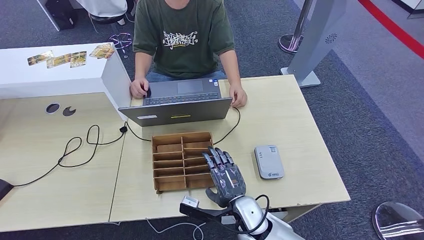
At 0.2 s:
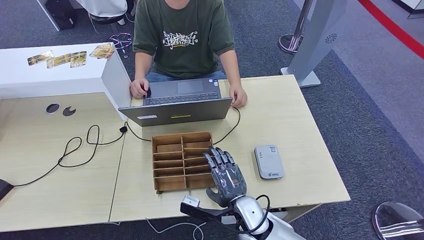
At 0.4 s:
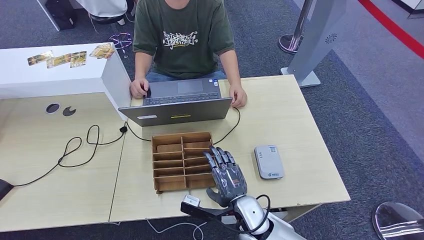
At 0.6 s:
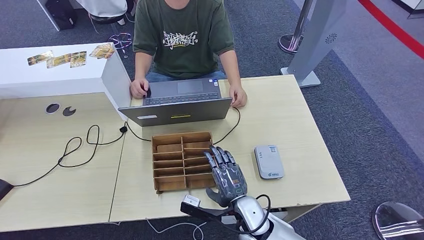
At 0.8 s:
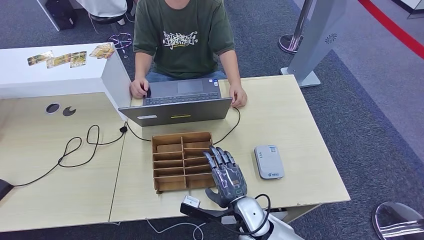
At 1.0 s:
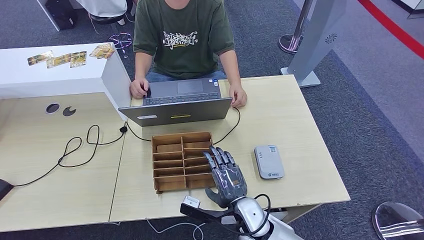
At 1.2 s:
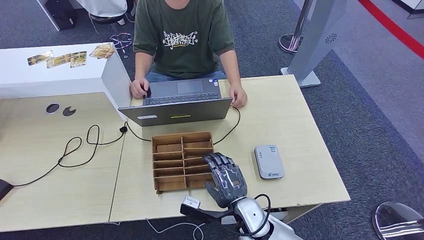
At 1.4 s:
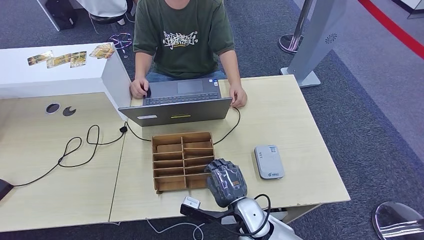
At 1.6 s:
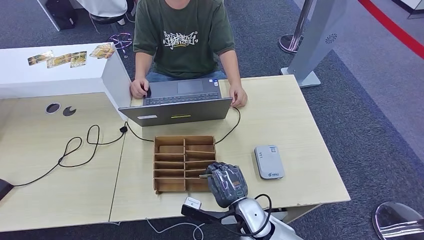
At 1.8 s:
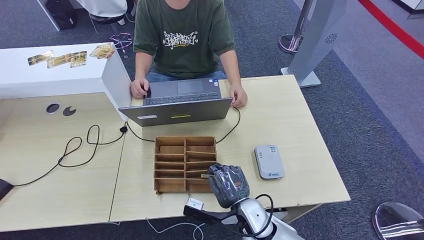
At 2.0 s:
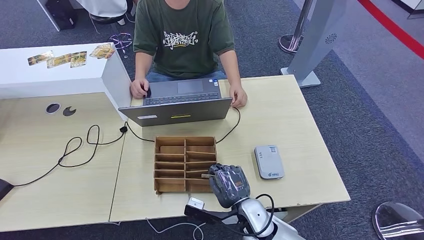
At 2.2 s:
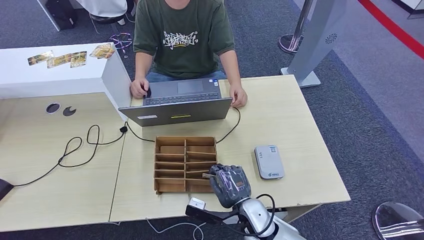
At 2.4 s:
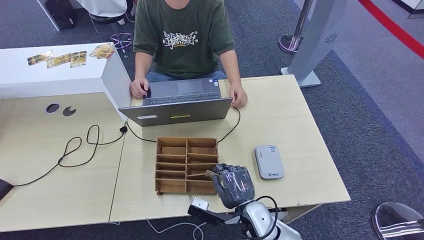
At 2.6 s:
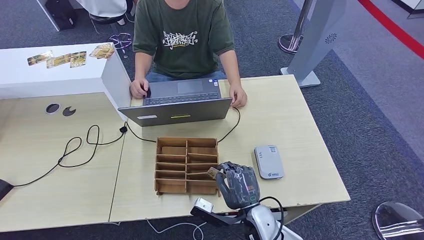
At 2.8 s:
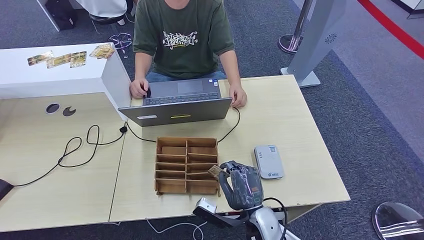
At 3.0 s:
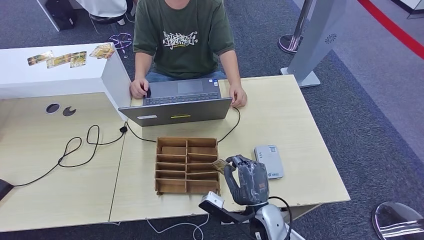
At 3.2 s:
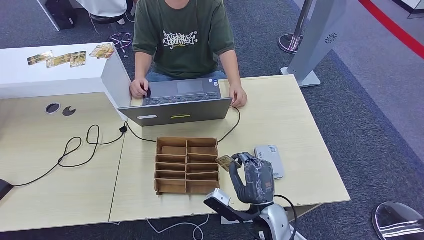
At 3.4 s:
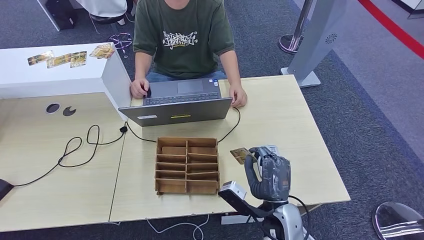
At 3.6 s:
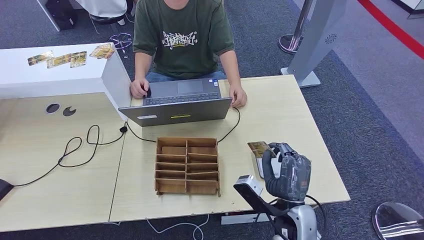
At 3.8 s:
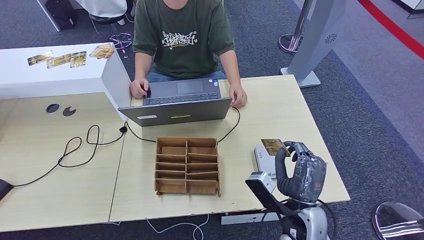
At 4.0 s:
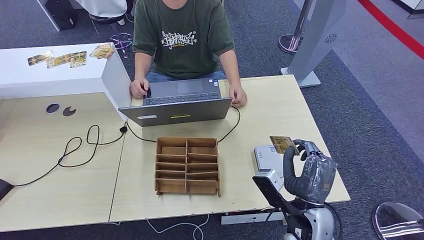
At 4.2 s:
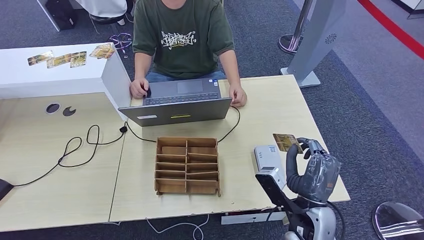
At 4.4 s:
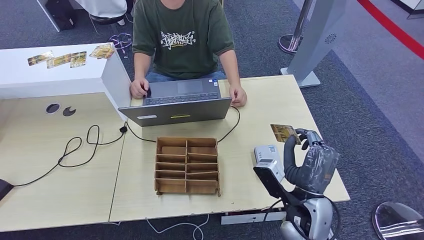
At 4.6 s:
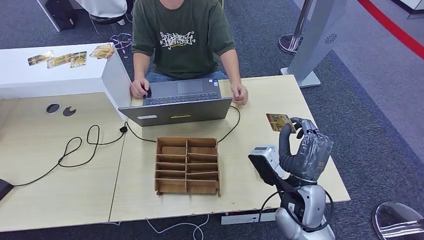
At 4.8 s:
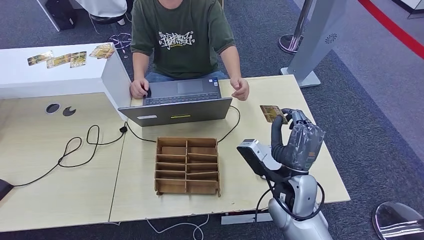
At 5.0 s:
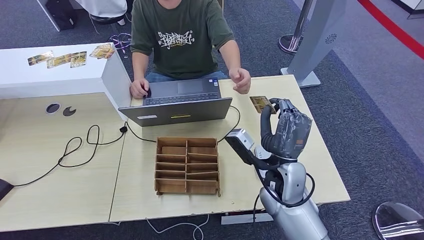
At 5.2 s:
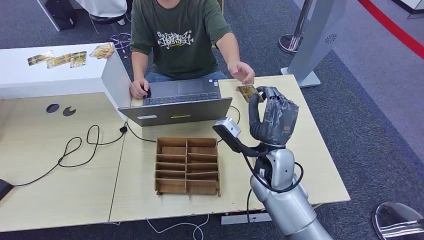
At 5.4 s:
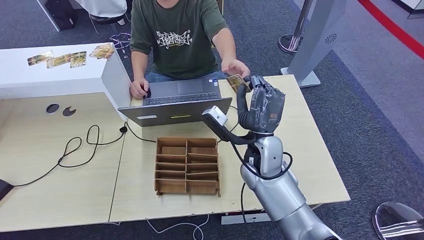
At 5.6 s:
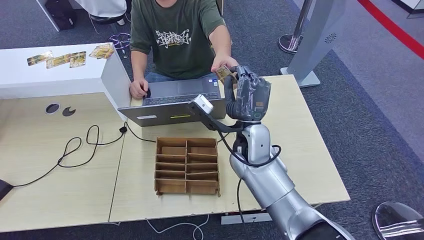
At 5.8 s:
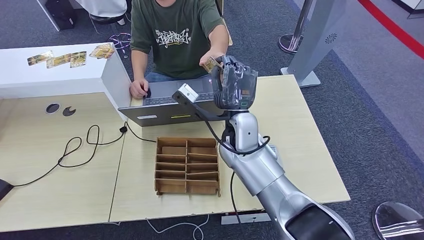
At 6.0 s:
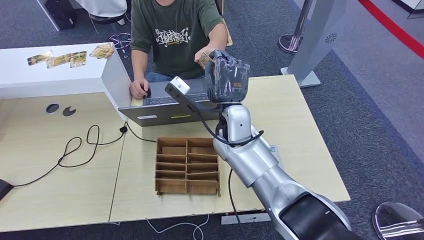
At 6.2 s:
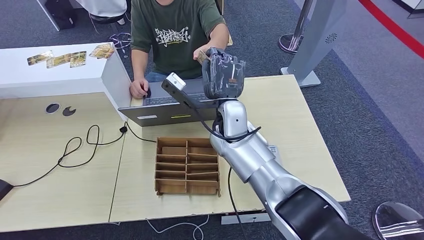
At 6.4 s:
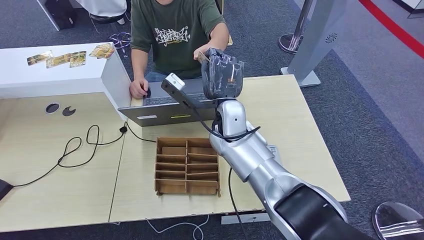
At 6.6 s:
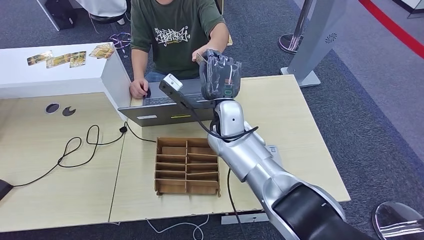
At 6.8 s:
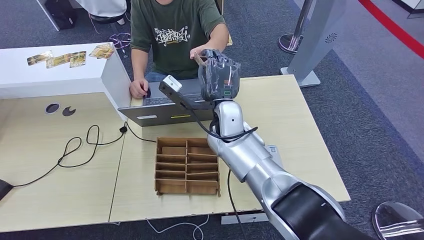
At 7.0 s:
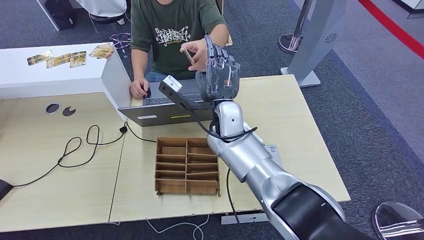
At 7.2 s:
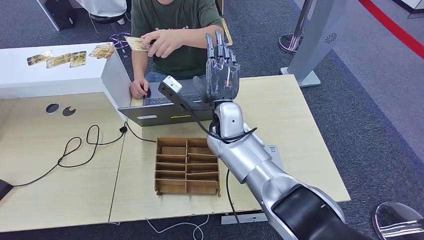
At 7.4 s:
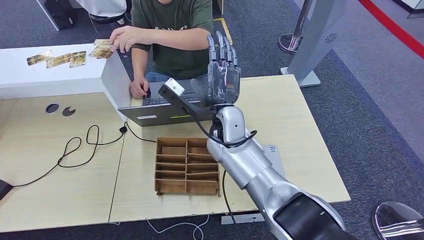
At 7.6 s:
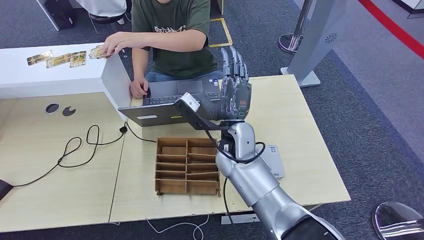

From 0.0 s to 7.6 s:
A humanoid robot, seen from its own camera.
Step, from 1.6 s to 4.2 s: Pick up the room key from the key card box.
Step, from 4.4 s to 7.6 s: Hand the room key to the person.
From 0.0 s to 1.6 s: Neither hand changes place.
From 3.0 s to 4.6 s: The right hand is displaced upward and to the right by some 10 cm.
From 4.6 s to 6.0 s: The right hand goes some 20 cm forward, to the left and upward.
From 6.0 s to 7.6 s: The hands make only small movements.
